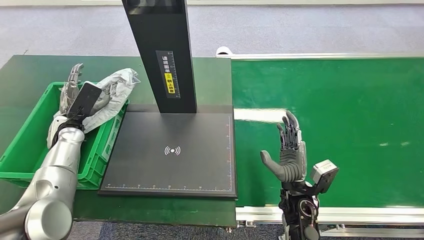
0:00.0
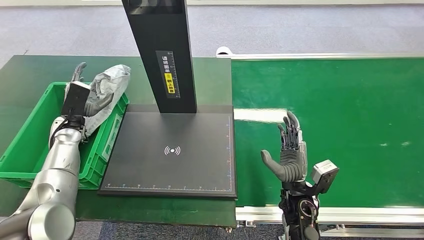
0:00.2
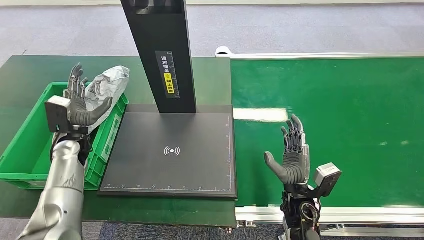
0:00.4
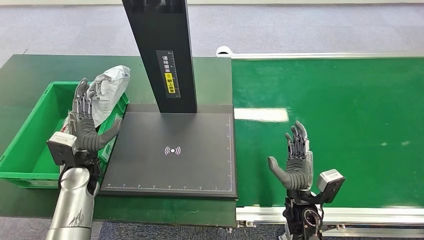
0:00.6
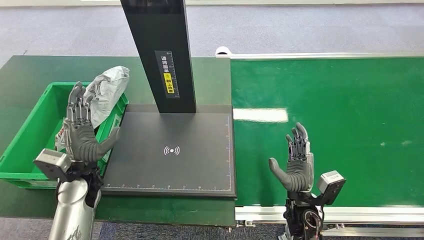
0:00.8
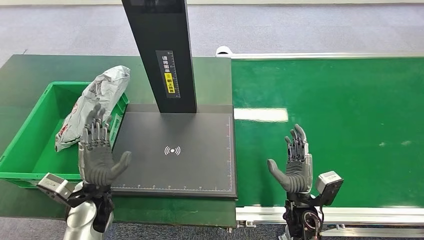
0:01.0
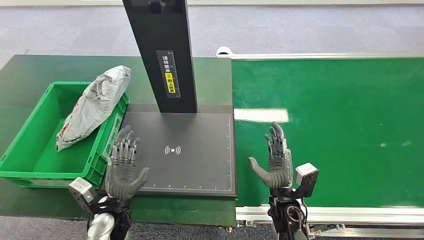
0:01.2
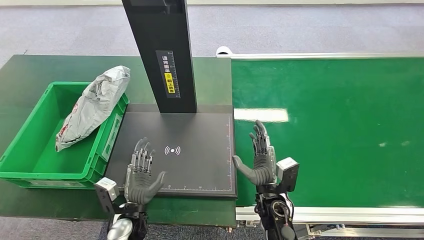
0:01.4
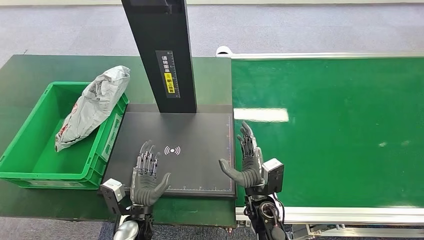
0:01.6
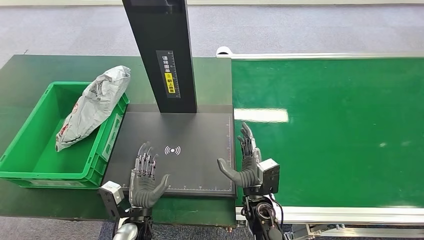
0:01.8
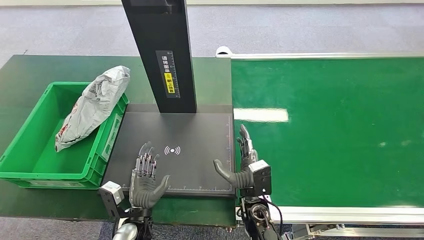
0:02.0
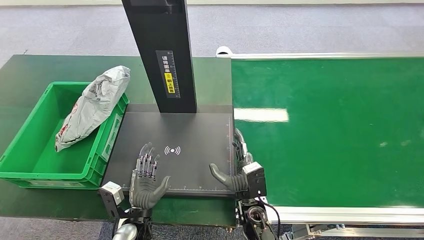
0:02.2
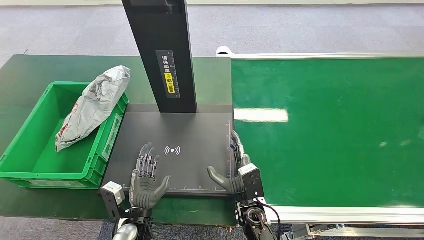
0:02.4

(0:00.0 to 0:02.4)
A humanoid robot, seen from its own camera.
Step, 0:00.0 - 0:02.4: Place the package into the parcel locker.
0:00.0 - 0:01.2: The left hand goes roughly 25 cm backward, to the right and downward.
0:01.2 - 0:02.4: The right hand is displaced to the left by some 10 cm; the left hand heads to the right, covering approximately 5 cm.
